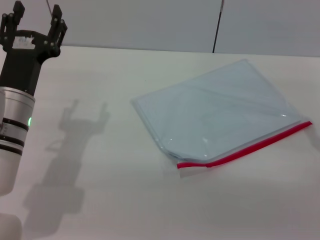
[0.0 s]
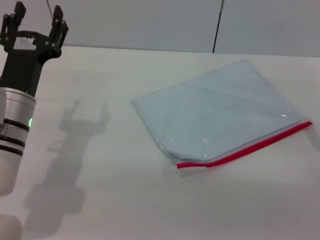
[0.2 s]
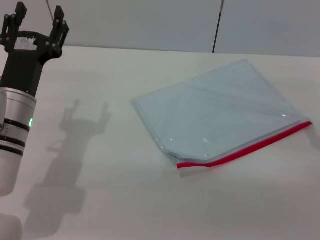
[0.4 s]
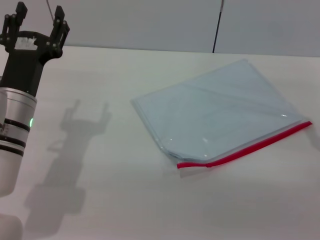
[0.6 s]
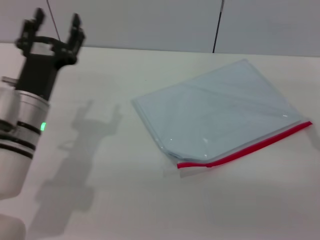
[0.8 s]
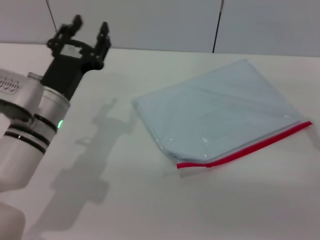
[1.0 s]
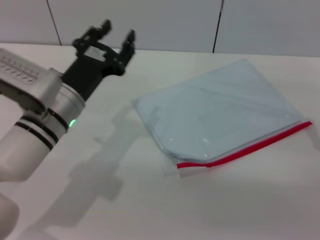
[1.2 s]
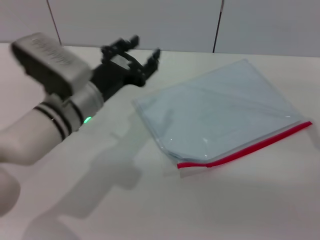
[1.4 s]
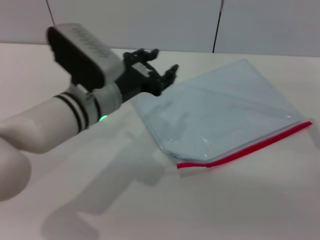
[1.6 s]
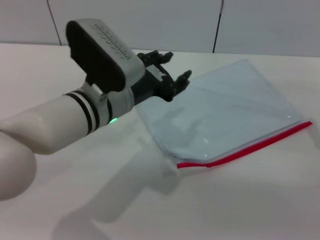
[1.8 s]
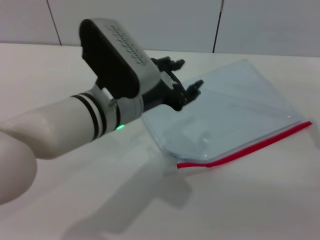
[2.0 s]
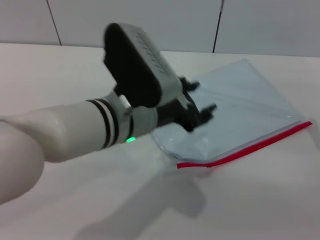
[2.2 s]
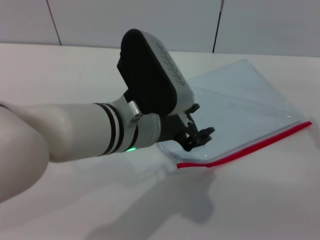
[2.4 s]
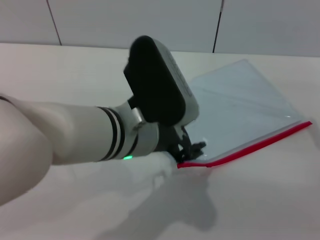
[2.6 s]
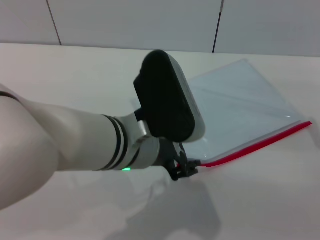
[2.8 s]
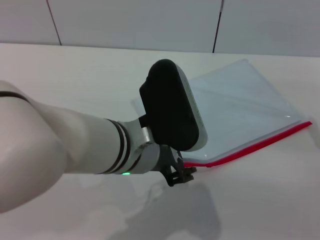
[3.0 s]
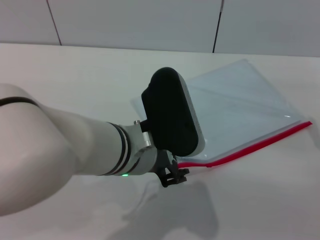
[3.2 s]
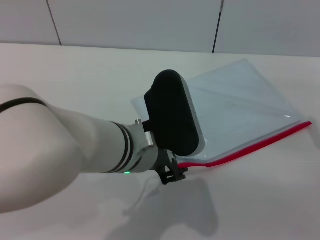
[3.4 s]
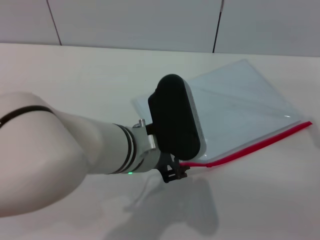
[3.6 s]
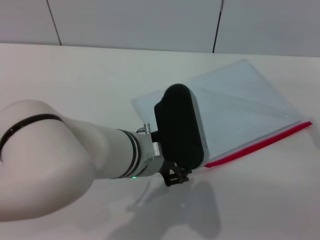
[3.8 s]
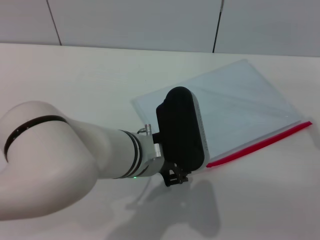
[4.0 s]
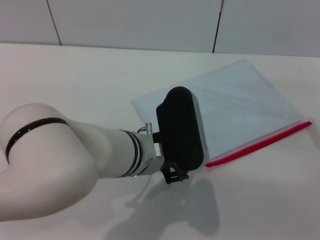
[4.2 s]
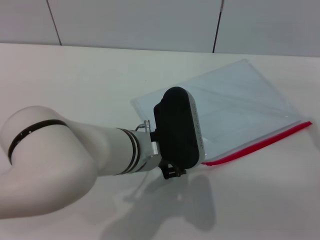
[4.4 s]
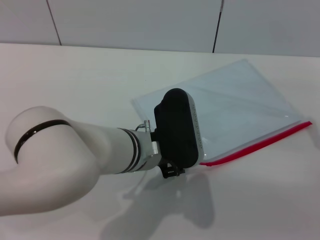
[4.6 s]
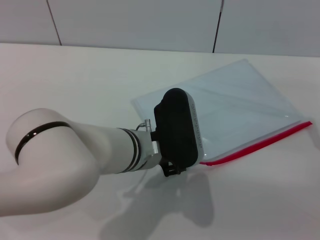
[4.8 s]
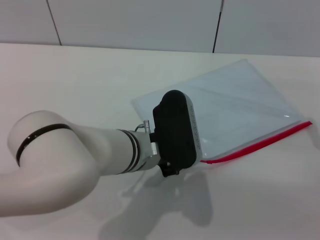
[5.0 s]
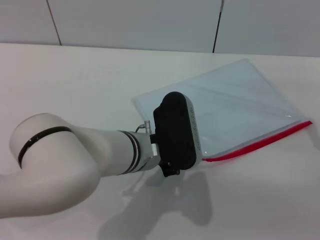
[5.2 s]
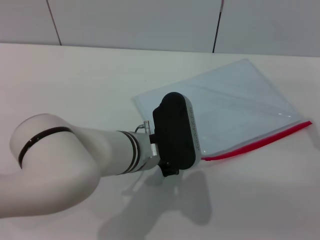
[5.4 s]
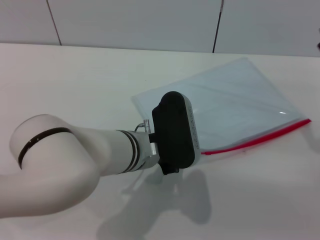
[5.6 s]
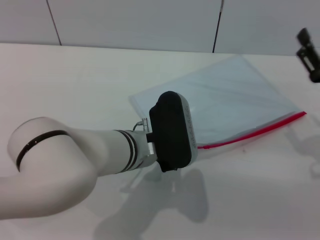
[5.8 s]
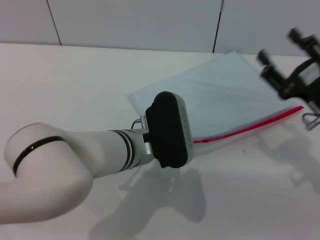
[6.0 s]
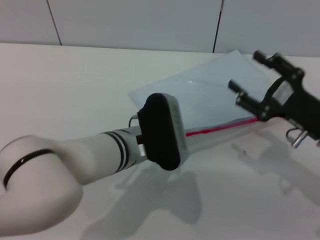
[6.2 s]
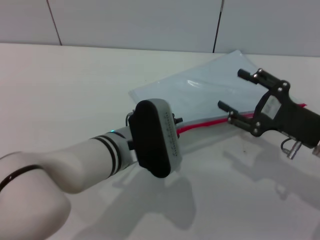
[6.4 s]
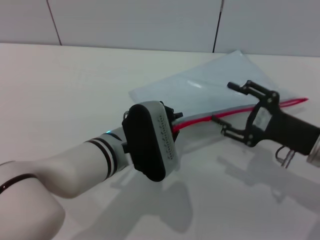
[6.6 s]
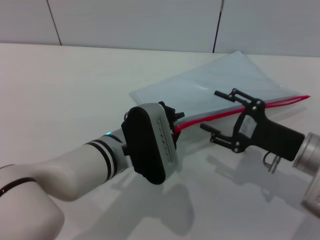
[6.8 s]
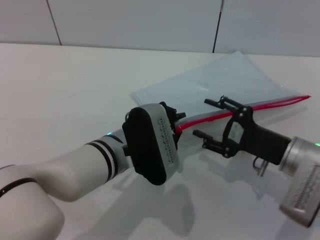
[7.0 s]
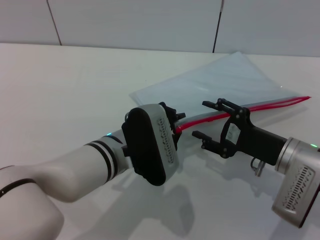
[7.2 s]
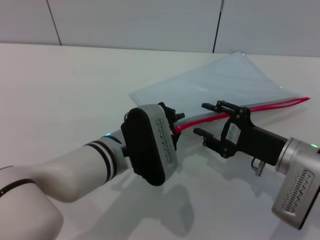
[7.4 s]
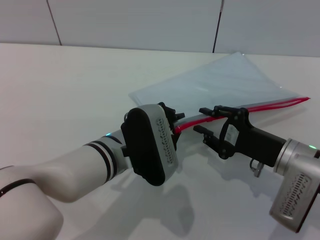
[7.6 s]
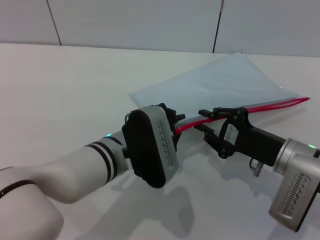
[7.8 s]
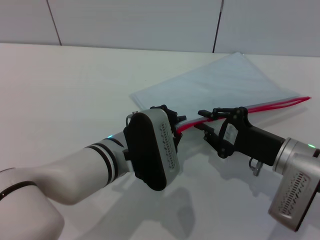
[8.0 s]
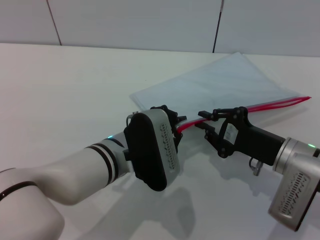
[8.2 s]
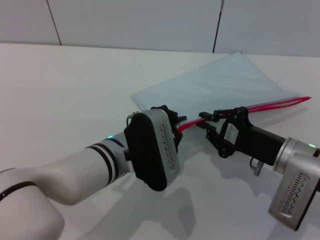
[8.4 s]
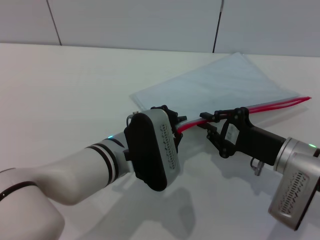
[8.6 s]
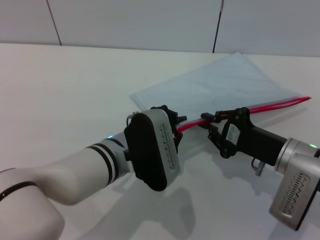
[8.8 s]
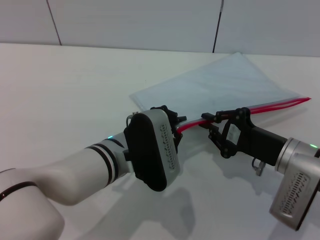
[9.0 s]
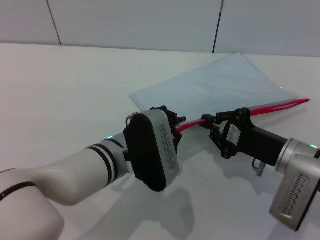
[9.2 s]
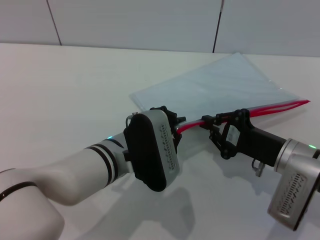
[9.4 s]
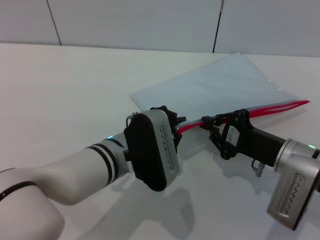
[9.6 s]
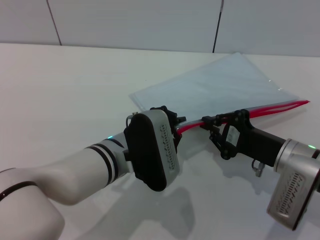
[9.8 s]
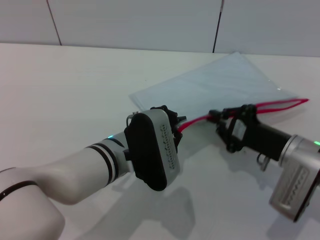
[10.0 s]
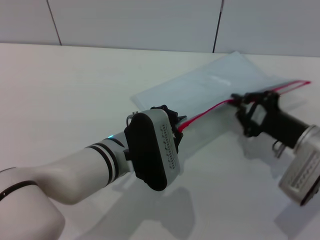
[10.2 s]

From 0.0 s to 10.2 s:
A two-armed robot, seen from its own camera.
Step, from 0.0 s to 6.6 s: Pick up the transparent plastic bag with the left gripper.
From 0.0 s to 1.4 s: The left gripper shifts some 5 cm to the right.
From 1.4 s to 3.0 s: The left gripper heads to the right, backward and upward, covering about 15 cm.
From 3.0 s to 4.4 s: The left gripper is displaced downward by about 5 cm.
From 4.4 s to 5.8 s: The left gripper closes.
From 5.8 s to 7.2 s: The right gripper is displaced to the left by about 5 cm.
From 7.2 s to 8.8 s: The right gripper closes up.
From 8.8 s to 10.2 s: There are only small adjustments of the grippers.

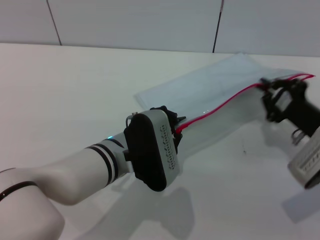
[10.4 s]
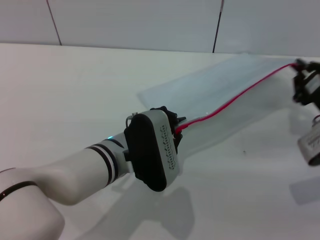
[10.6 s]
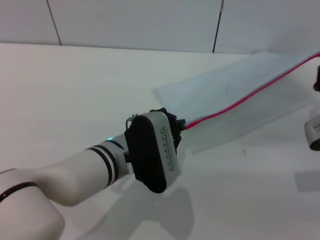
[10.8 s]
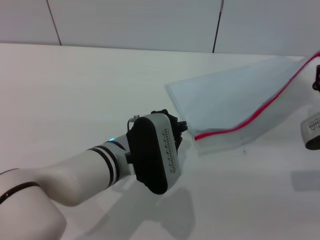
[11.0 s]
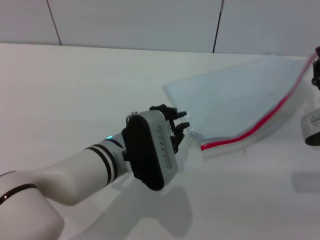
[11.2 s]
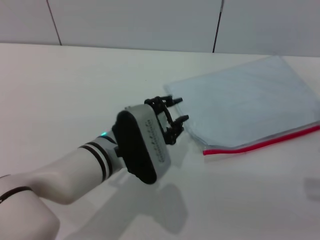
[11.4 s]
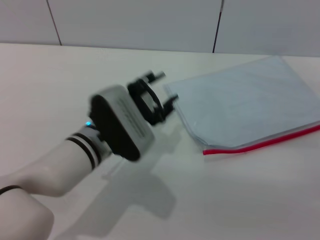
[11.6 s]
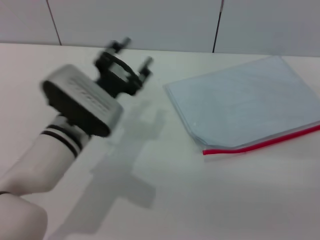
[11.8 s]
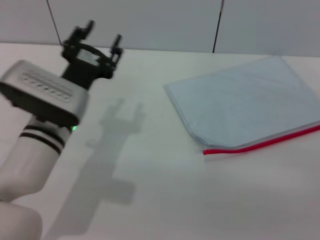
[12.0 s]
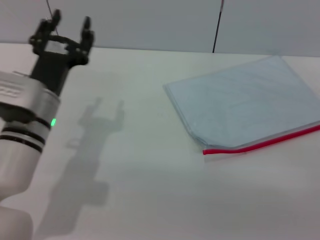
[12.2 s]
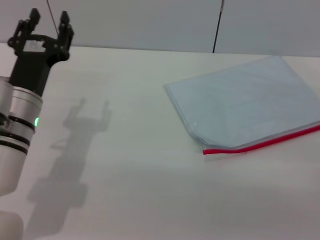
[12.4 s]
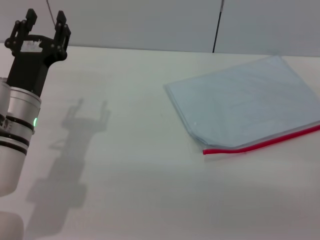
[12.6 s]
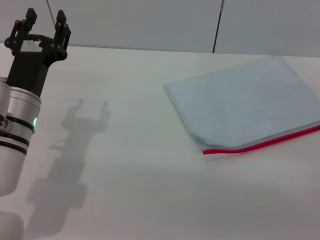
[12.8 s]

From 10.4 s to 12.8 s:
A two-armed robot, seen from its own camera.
Step, from 11.0 s to 11.4 s: Place the transparent plastic bag.
From 10.4 s to 11.6 s: The left gripper opens up. The right gripper opens up.
From 11.6 s to 12.8 s: The left gripper goes approximately 10 cm to the left.
